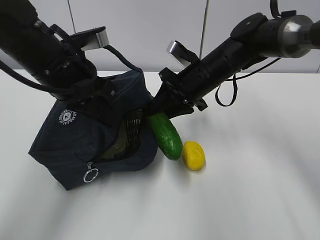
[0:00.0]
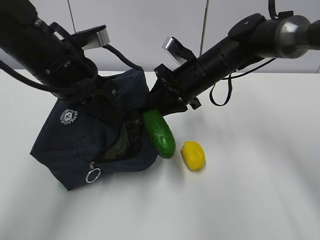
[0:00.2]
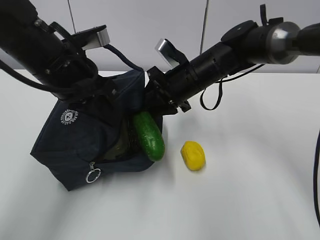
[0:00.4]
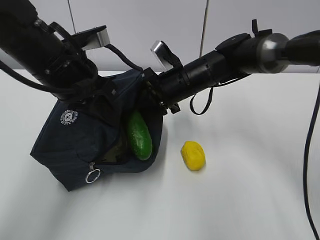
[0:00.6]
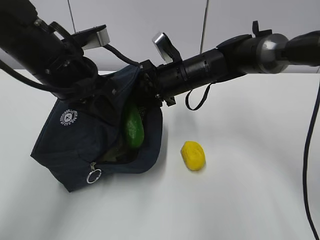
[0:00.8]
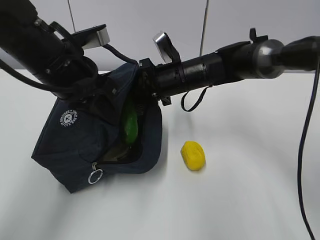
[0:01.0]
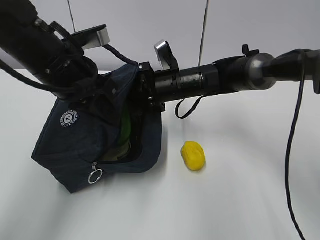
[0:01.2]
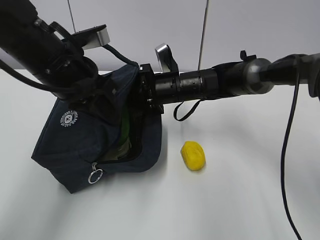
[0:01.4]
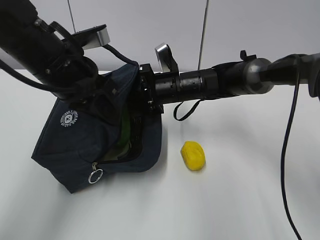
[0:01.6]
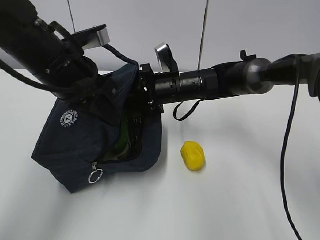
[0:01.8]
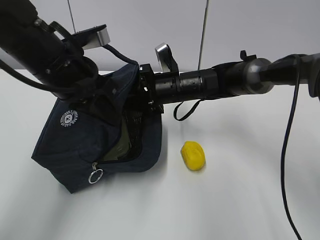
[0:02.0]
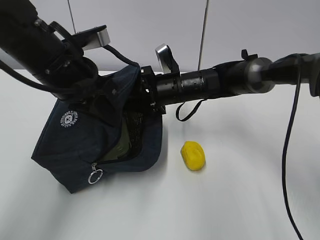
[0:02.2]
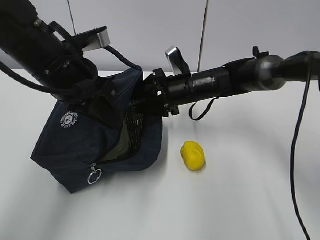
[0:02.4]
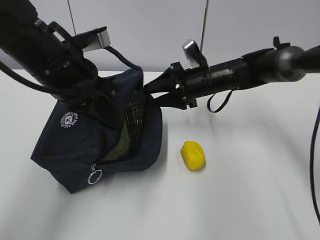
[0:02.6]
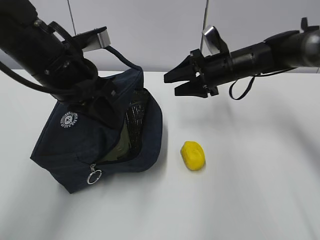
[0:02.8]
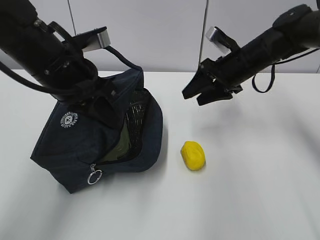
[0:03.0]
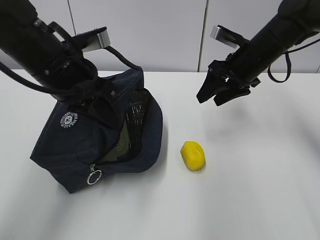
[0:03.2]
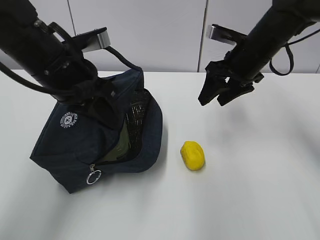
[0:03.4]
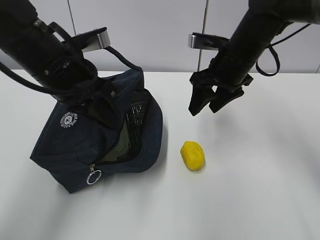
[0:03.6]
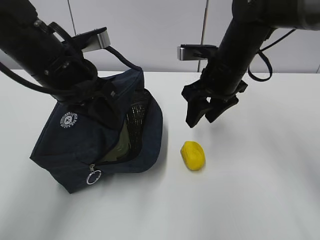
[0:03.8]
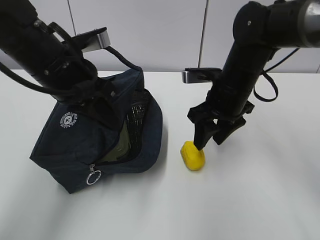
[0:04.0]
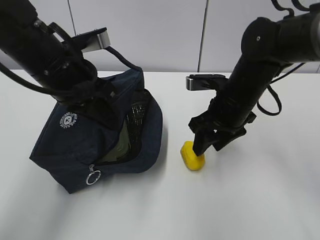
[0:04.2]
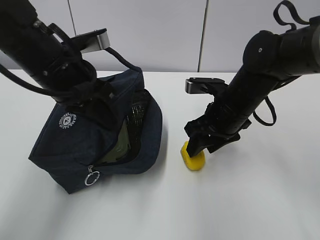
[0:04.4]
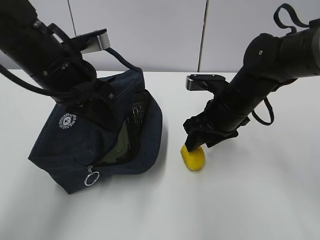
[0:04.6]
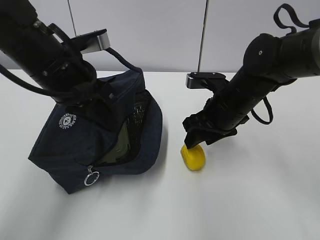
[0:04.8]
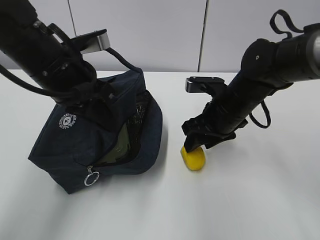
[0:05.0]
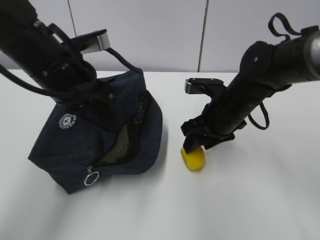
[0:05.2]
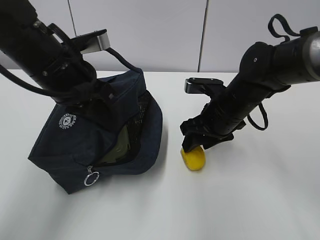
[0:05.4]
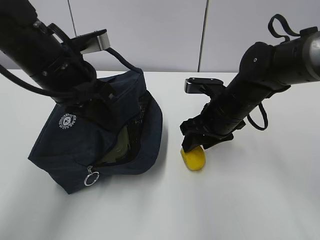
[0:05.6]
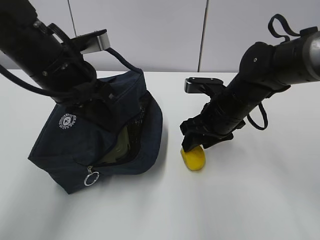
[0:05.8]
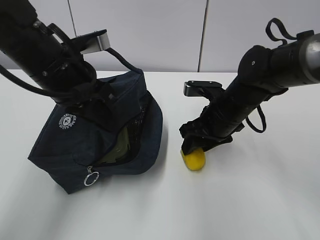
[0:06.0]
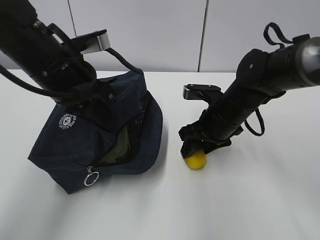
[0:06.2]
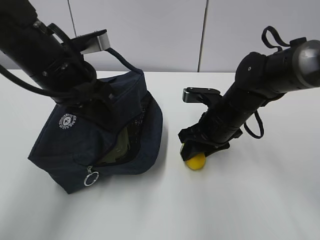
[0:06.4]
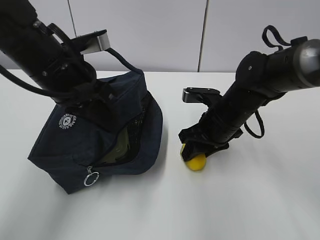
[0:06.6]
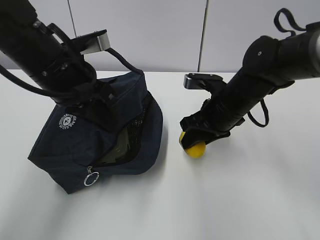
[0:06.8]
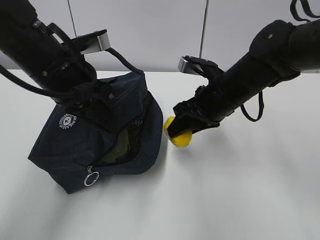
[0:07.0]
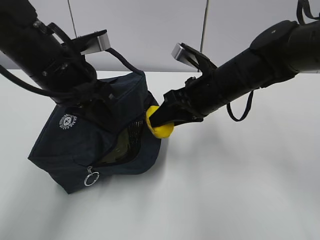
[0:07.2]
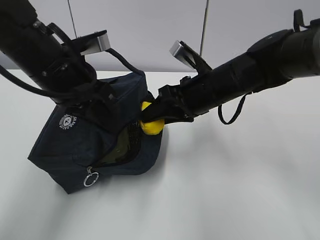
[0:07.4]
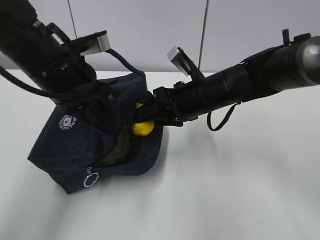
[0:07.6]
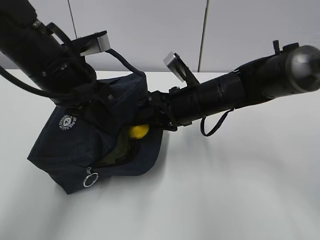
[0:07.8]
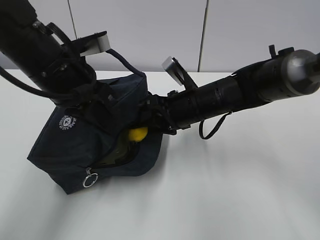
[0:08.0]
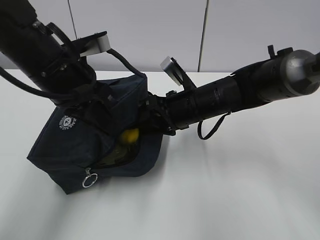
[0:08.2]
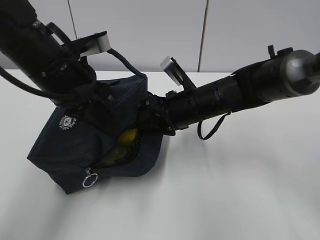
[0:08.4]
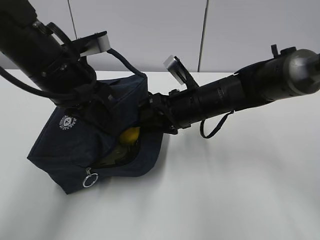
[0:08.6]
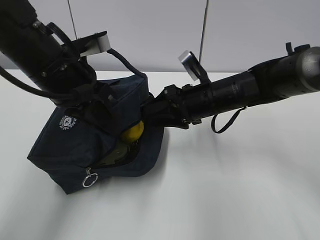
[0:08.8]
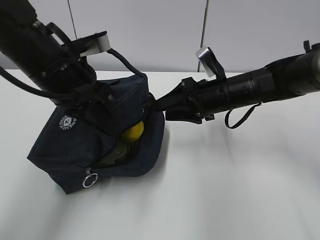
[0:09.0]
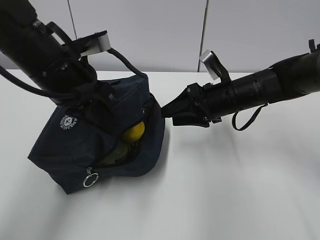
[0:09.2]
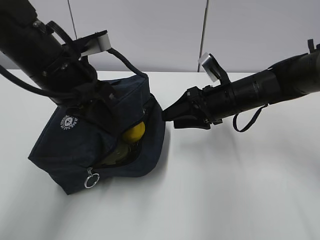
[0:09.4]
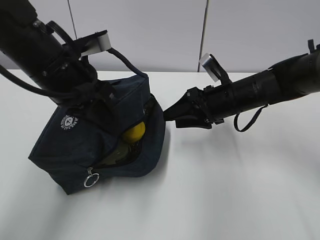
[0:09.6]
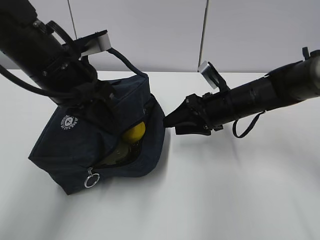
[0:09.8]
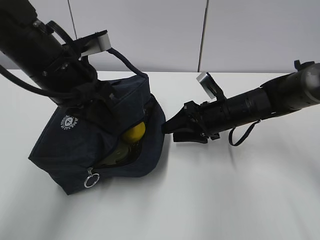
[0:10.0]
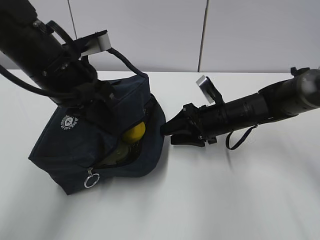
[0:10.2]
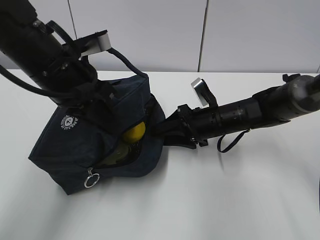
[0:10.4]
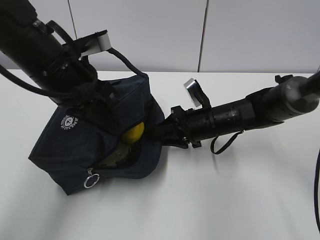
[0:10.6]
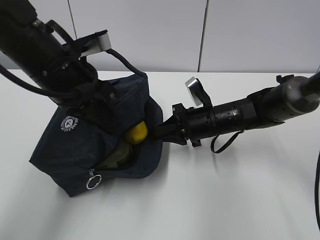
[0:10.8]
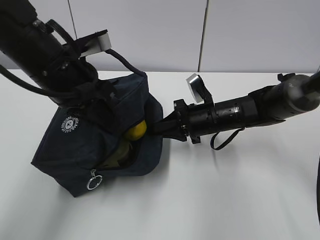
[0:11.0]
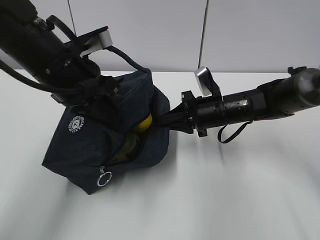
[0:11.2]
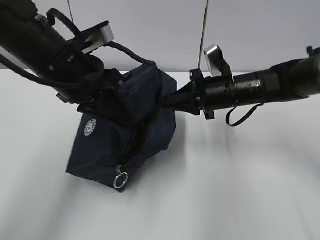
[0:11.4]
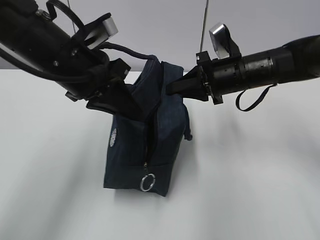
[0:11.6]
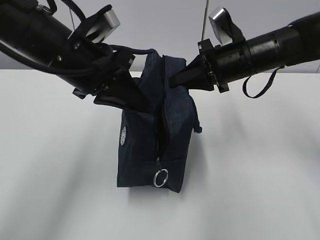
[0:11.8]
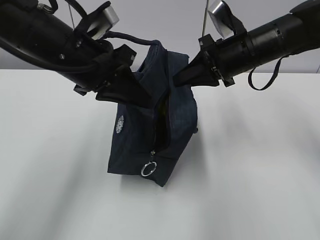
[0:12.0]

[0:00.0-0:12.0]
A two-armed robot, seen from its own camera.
Step, 0:03.4 to 0:04.8: Grab the lunch bag with your right hand.
Step, 0:05.0 to 0:07.4: Stand the lunch bag upright with your right hand.
0:00.0 to 0:01.6: The right gripper changes place by about 5 cm.
0:01.6 to 0:03.0: The right gripper goes some 15 cm to the right and upward.
0:03.0 to 0:04.4: The right gripper shifts some 10 cm backward and to the left.
0:04.4 to 0:06.0: The grippers move only a little.
0:06.0 to 0:07.6: The right gripper changes place by approximately 5 cm.
0:07.6 to 0:09.0: The right gripper travels to the right by approximately 5 cm.
0:09.0 to 0:10.4: The right gripper goes about 5 cm downward.
0:10.4 to 0:12.0: The right gripper goes about 15 cm upward, and closes.

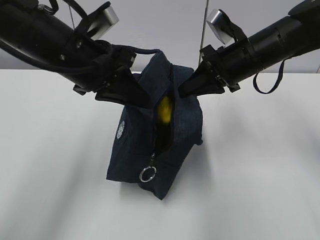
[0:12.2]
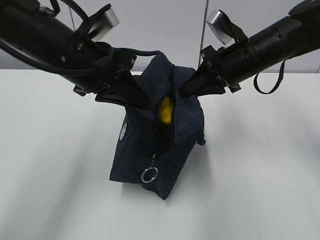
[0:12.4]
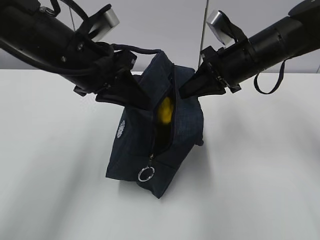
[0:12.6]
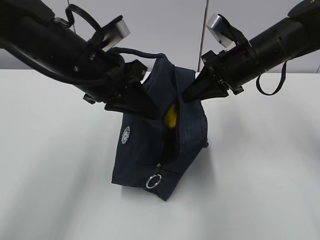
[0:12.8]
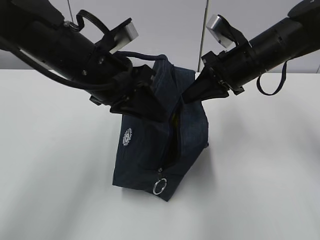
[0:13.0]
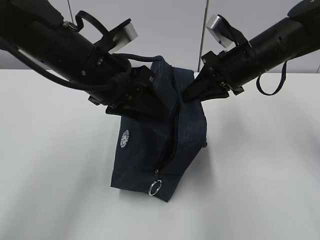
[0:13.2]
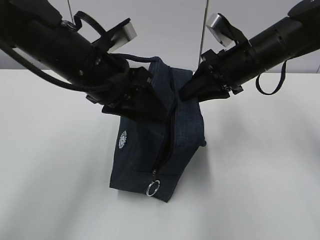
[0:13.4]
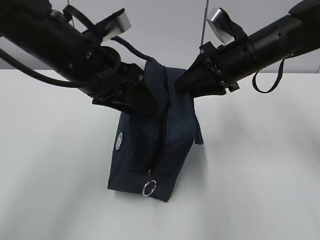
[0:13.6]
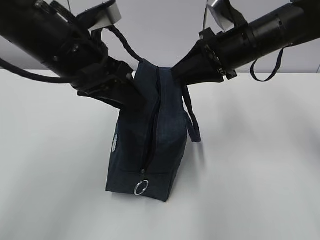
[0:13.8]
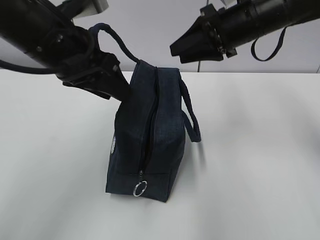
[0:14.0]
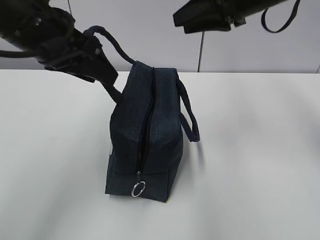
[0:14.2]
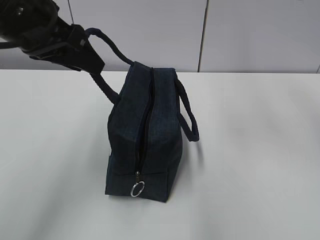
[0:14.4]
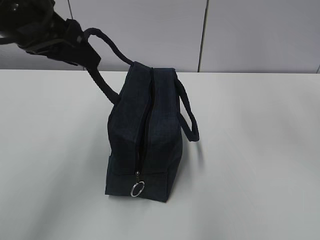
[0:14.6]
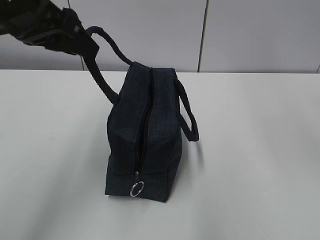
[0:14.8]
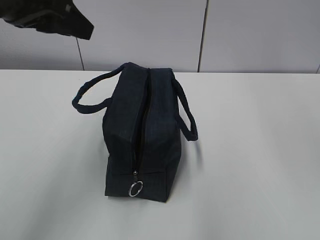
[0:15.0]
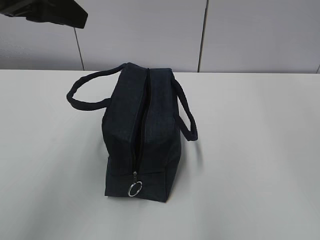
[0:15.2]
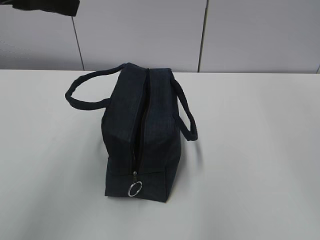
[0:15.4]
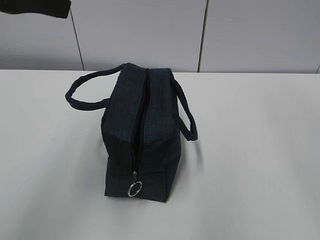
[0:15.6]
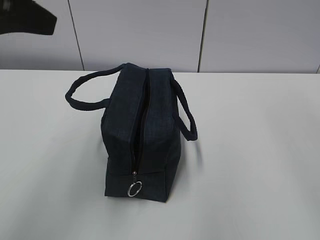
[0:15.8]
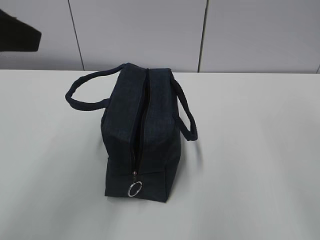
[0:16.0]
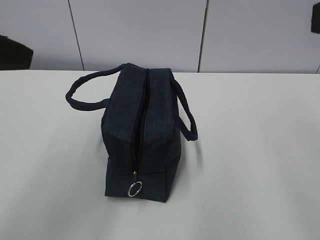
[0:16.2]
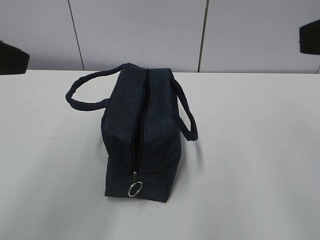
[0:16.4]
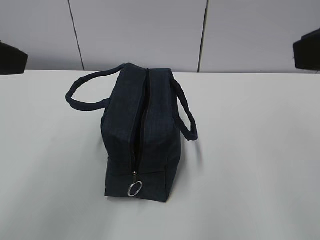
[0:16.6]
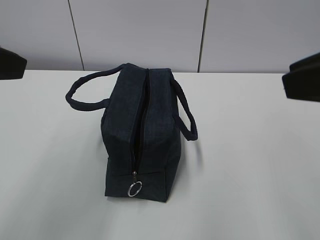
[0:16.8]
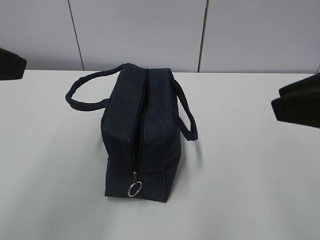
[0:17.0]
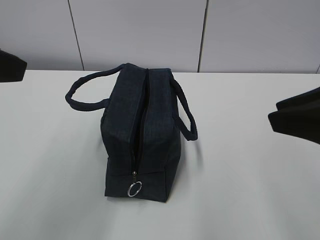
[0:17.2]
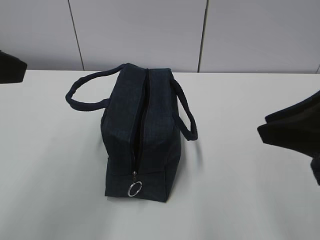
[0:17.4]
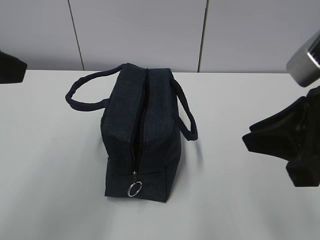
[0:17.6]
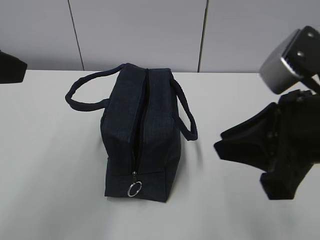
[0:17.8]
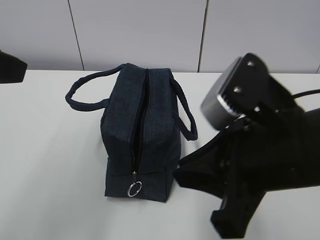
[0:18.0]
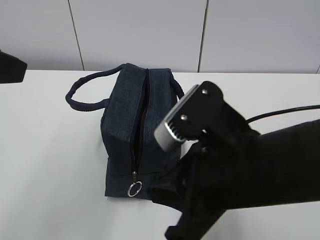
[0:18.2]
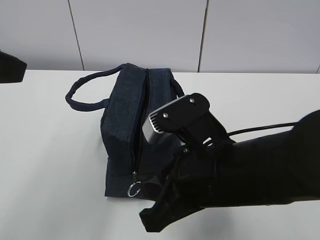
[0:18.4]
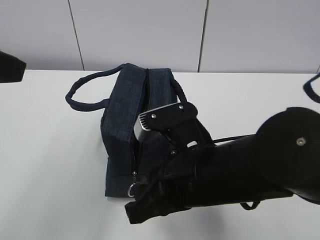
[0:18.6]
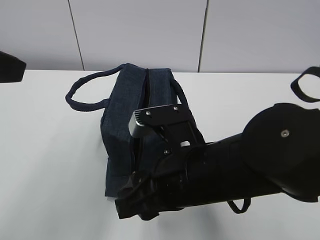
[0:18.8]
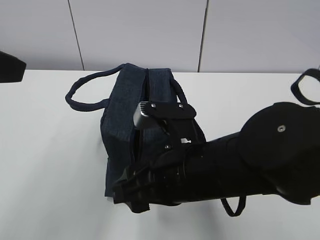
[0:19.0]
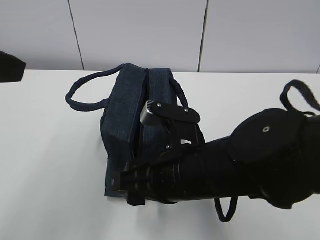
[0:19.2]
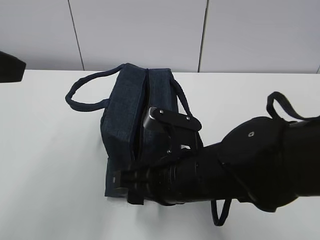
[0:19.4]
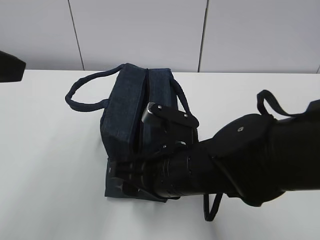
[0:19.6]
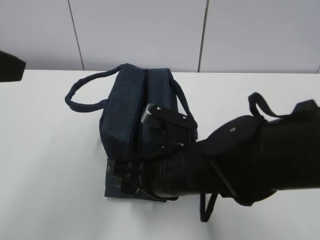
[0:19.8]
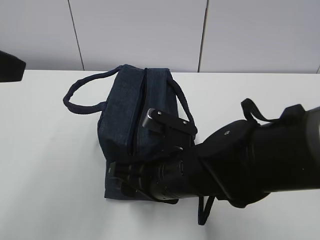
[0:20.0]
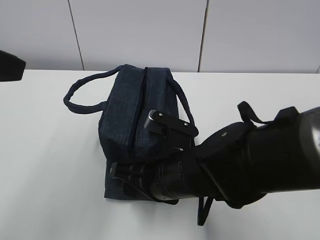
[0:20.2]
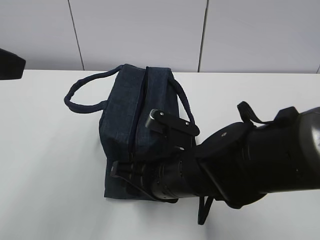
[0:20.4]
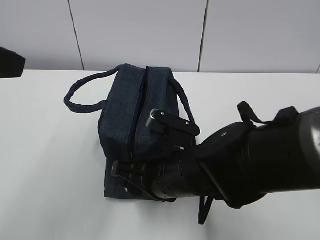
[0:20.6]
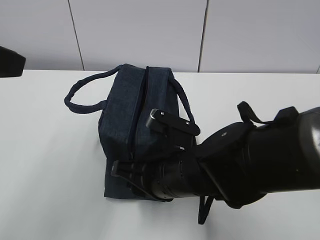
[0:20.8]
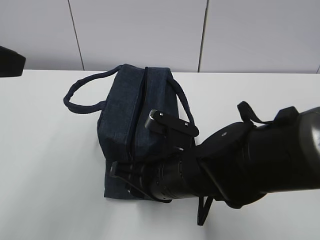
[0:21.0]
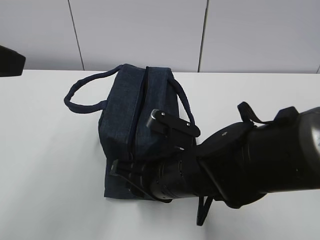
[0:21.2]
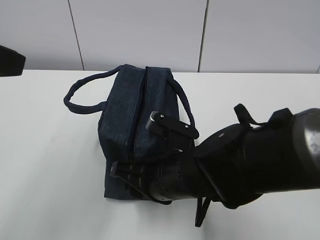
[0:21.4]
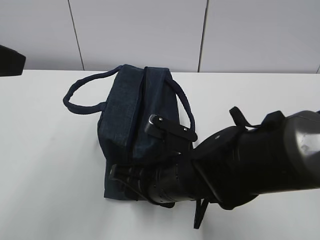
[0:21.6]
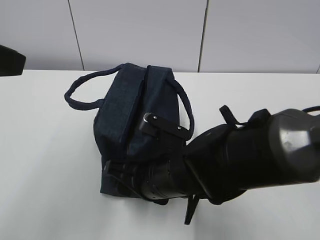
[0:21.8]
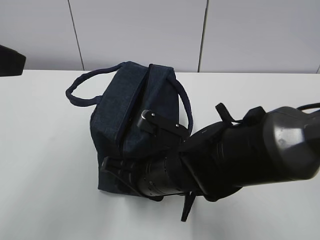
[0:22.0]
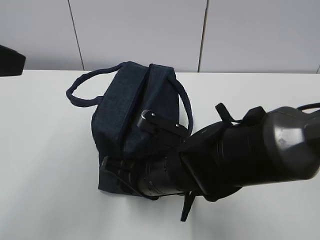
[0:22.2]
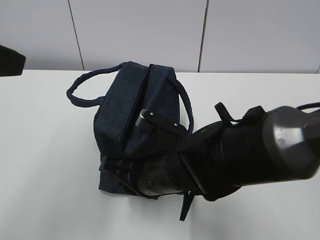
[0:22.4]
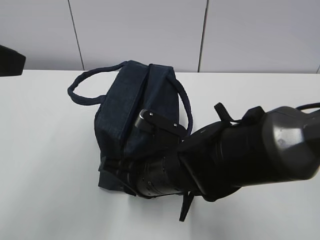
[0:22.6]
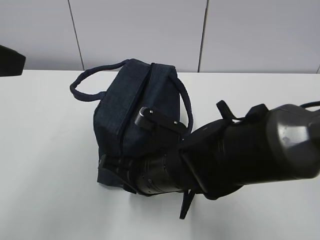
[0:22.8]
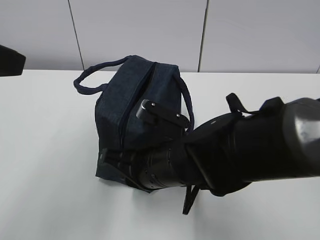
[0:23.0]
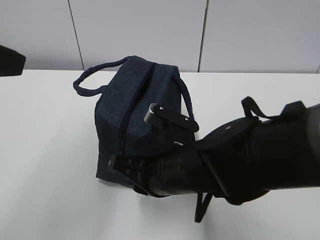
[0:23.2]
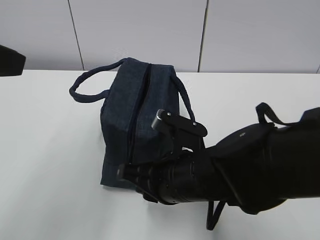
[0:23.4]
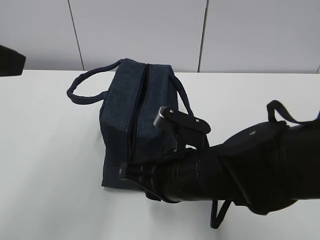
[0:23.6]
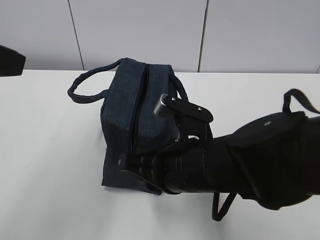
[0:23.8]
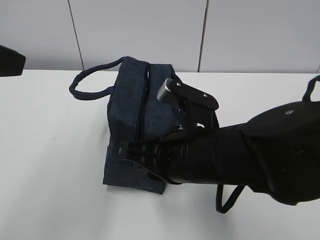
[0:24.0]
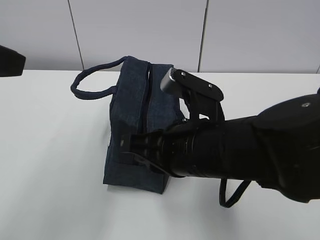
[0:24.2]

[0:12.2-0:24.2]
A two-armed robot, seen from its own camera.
0:12.2 to 0:13.8: The left gripper opens its fingers. Meanwhile the right gripper opens its fingers.
0:13.8 to 0:15.2: The left gripper goes some 10 cm upward and to the left; the right gripper goes some 30 cm upward and backward.
0:15.2 to 0:16.6: The right gripper shifts approximately 15 cm downward and backward. Meanwhile the left gripper heads backward, covering approximately 10 cm.
0:16.6 to 0:18.2: The right gripper moves downward and to the left, some 20 cm.
0:18.2 to 0:19.8: The right gripper shifts approximately 10 cm downward, forward and to the left, and opens up.
0:19.8 to 0:21.2: The right gripper closes.
0:21.2 to 0:22.6: The right gripper closes up.
0:22.6 to 0:24.2: The right gripper goes about 10 cm upward.
